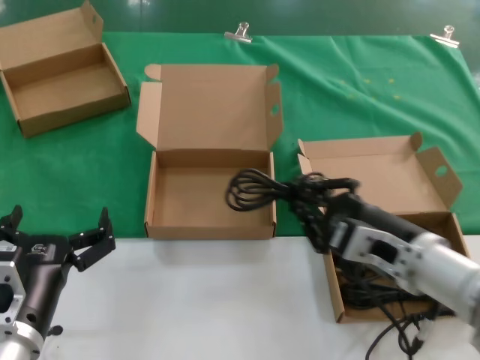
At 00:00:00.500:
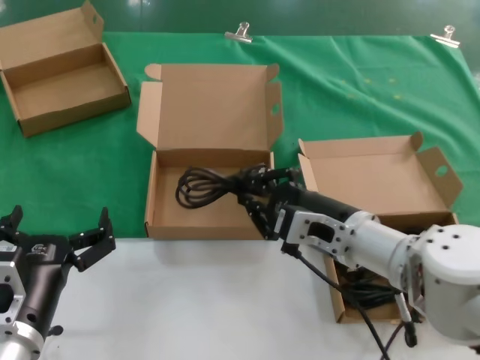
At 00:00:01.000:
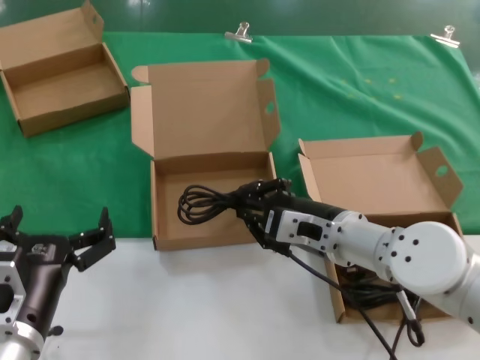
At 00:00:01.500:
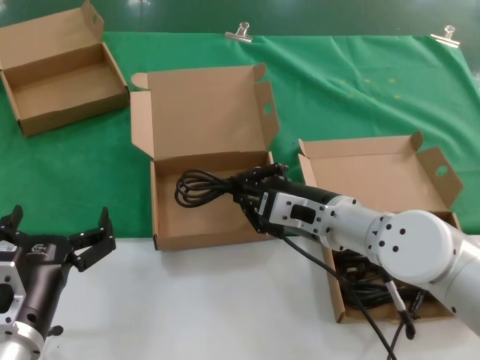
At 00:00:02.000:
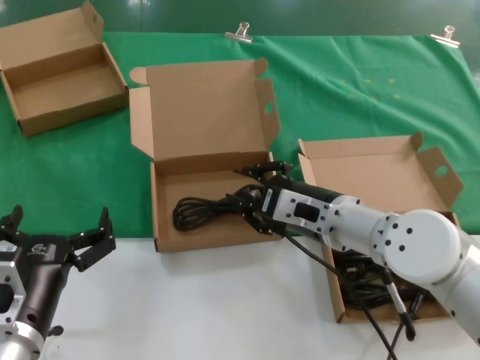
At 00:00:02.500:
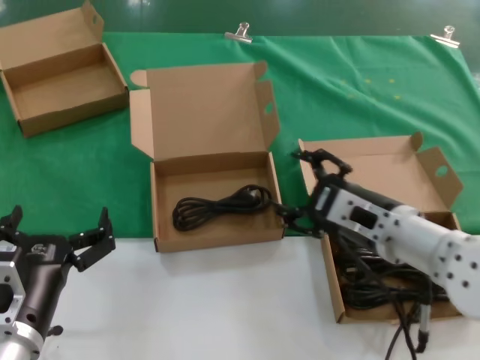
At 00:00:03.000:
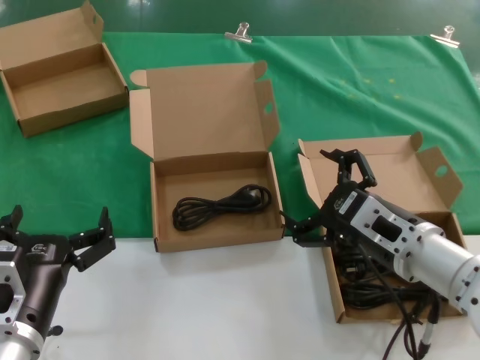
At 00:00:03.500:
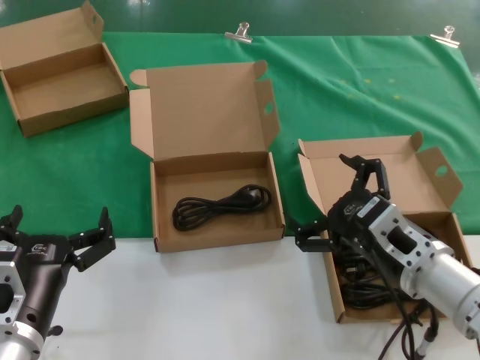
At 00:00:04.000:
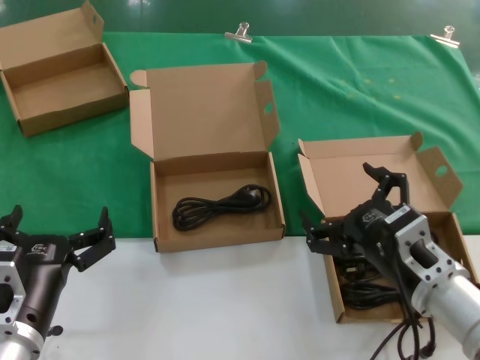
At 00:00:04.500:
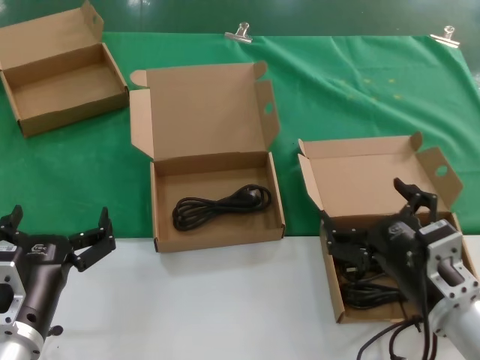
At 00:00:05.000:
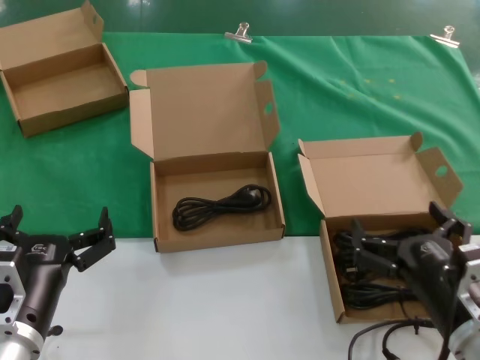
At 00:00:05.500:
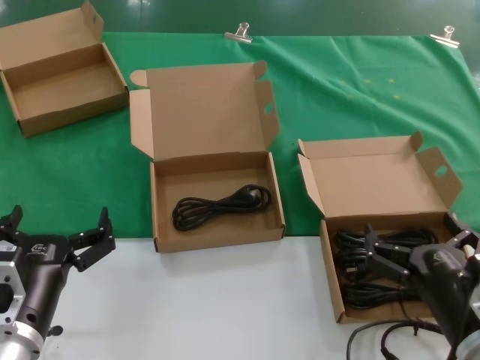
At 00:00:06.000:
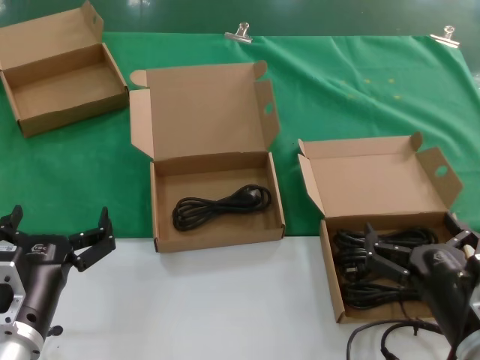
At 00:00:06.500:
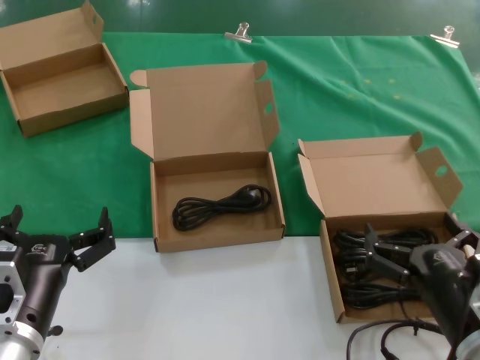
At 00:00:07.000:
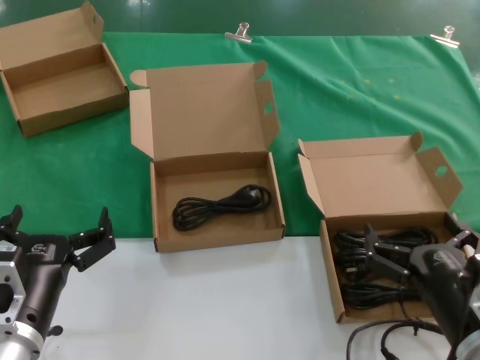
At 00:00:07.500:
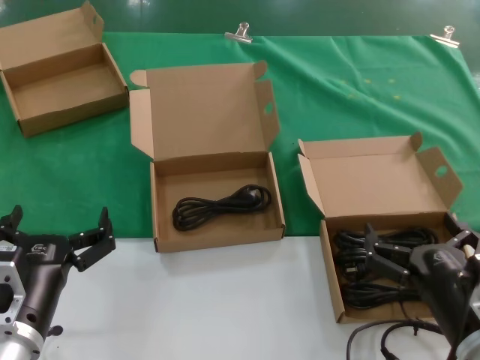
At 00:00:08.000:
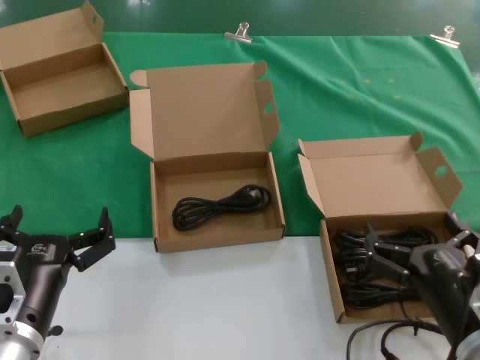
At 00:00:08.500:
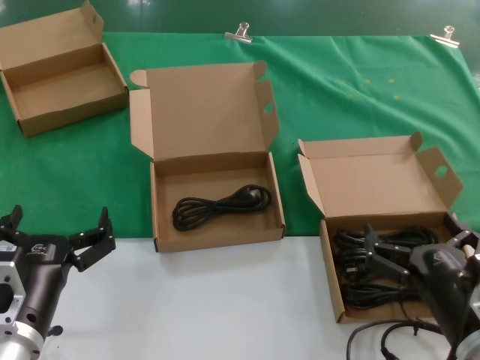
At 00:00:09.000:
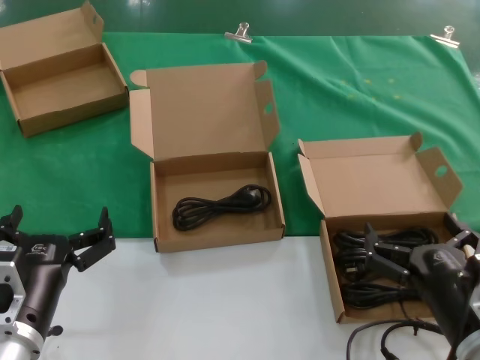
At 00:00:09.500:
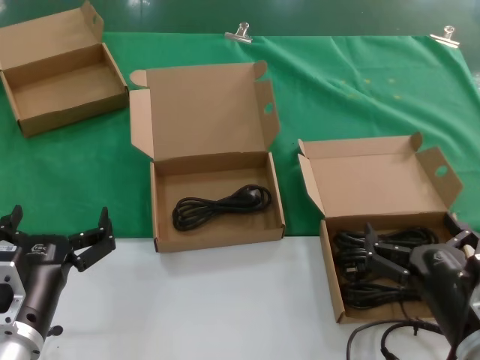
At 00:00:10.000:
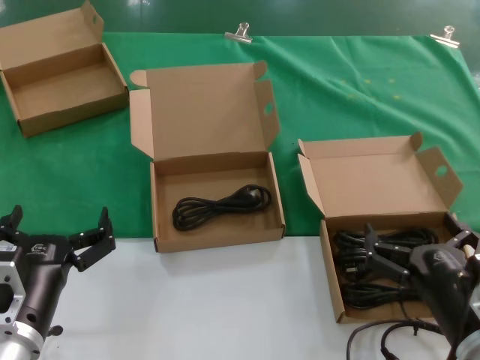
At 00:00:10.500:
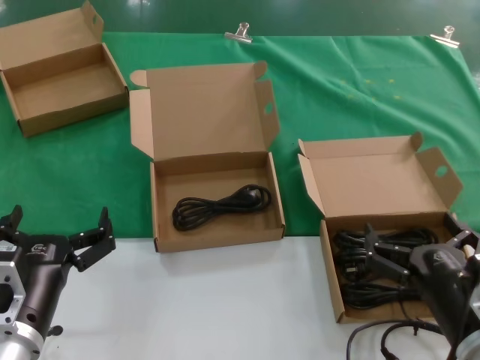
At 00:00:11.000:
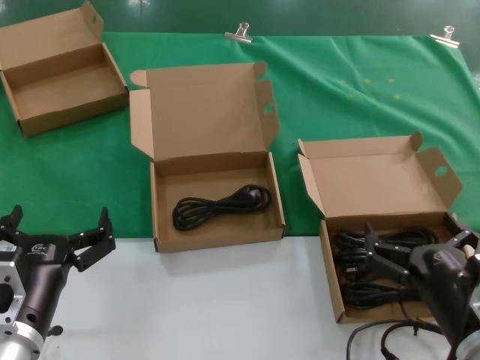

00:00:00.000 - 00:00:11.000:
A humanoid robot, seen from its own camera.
Task of the whole recording: take the parts from the box containing them and put them into an empty box.
00:00:00.000 - 00:00:02.000: The right hand is displaced forward and to the left by about 10 cm.
00:00:02.000 - 00:00:03.500: The right hand heads backward and to the right, covering roughly 10 cm.
00:00:03.500 - 00:00:05.500: The right hand is displaced backward and downward by about 10 cm.
00:00:05.500 - 00:00:11.000: Both hands stay put.

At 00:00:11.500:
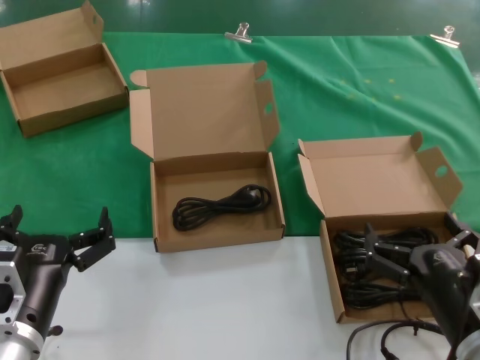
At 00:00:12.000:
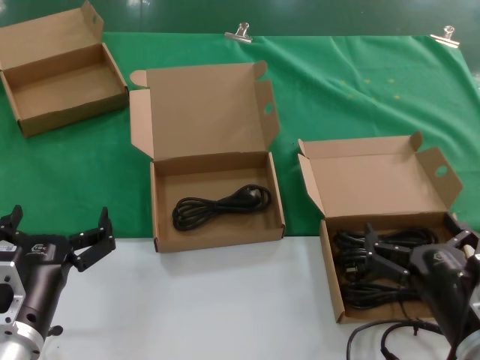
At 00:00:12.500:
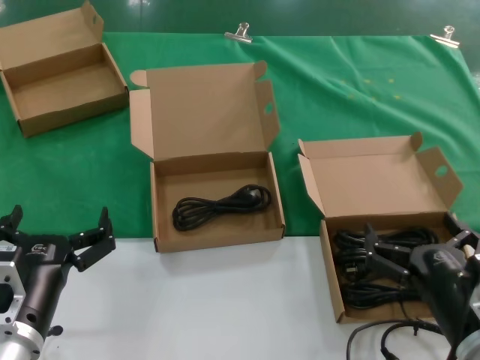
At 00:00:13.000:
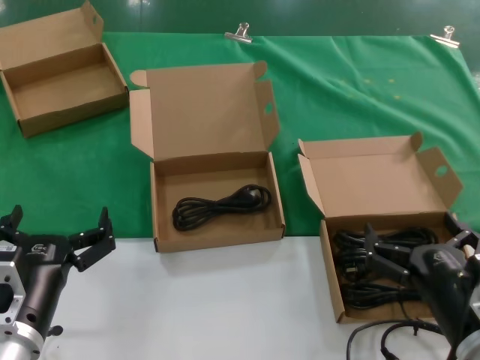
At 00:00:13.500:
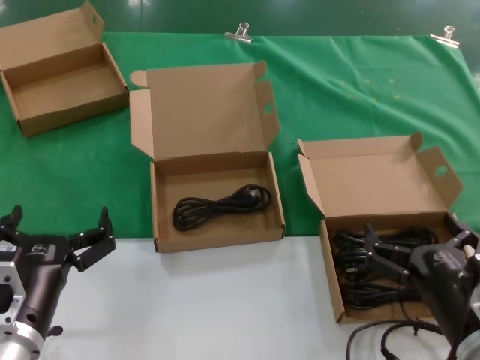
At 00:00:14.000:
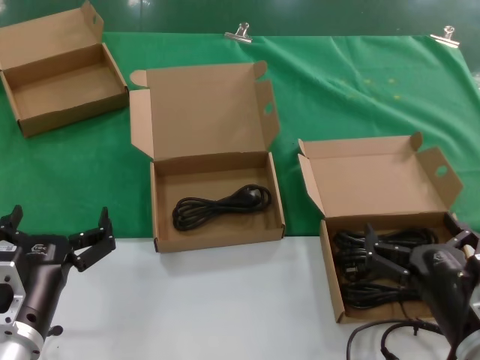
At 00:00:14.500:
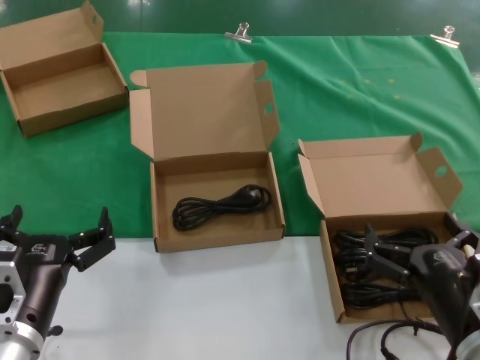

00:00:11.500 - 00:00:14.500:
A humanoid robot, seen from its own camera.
Task of the whole recording: take the parts from the box containing them and put them into an empty box.
00:00:11.500 - 00:00:14.500: The two hands keep their place.
